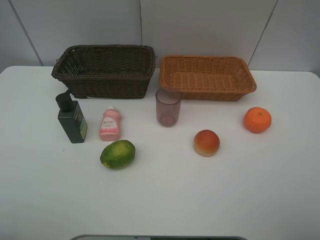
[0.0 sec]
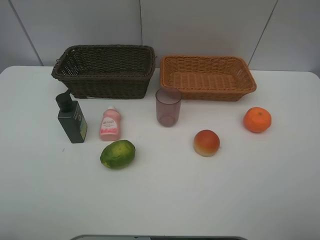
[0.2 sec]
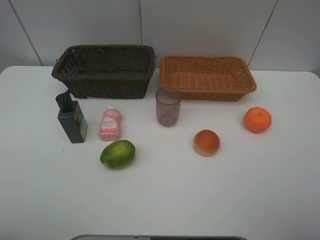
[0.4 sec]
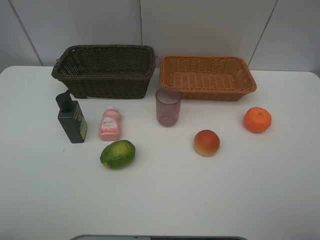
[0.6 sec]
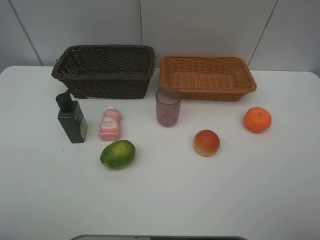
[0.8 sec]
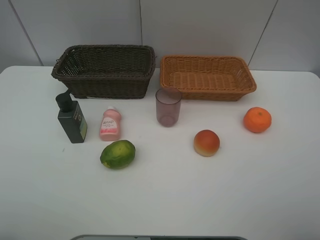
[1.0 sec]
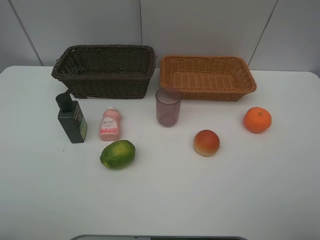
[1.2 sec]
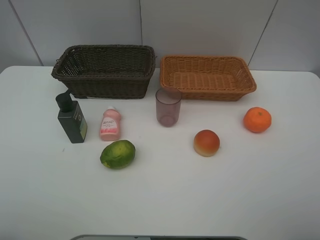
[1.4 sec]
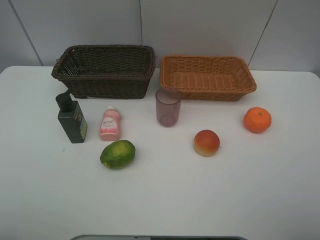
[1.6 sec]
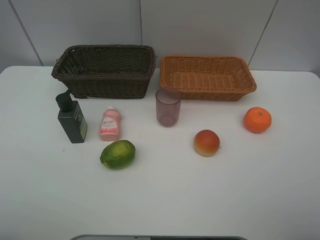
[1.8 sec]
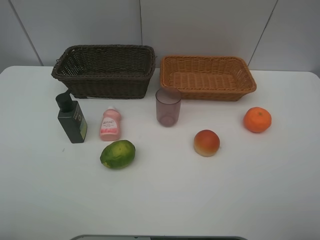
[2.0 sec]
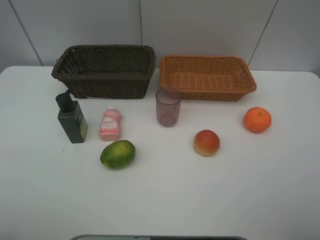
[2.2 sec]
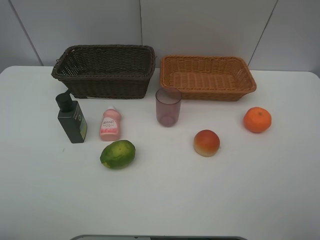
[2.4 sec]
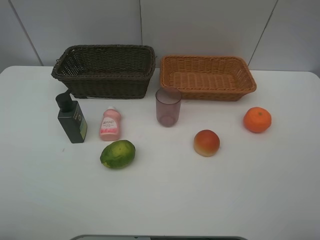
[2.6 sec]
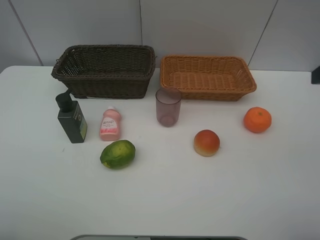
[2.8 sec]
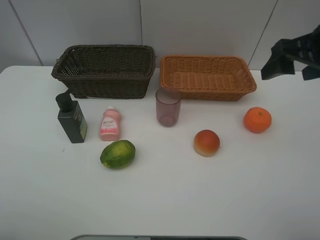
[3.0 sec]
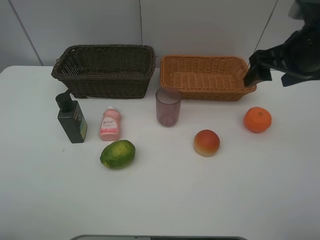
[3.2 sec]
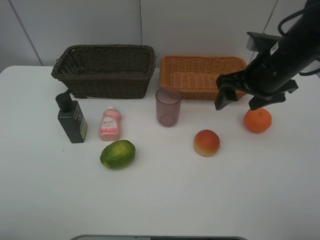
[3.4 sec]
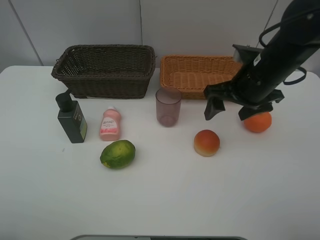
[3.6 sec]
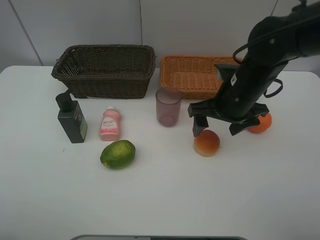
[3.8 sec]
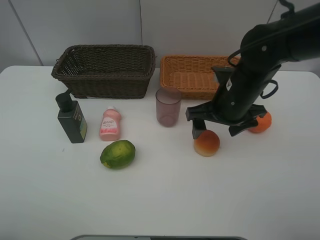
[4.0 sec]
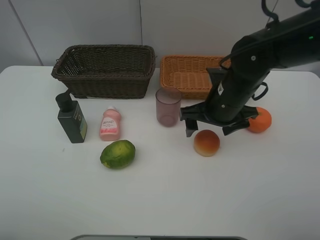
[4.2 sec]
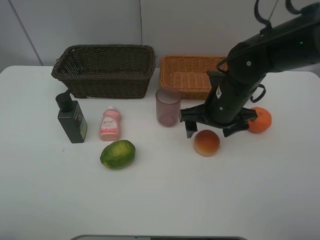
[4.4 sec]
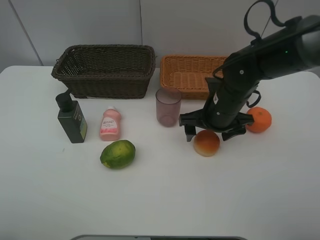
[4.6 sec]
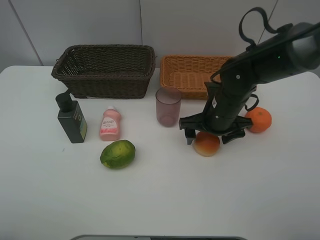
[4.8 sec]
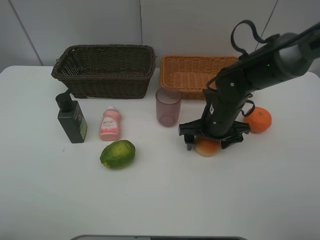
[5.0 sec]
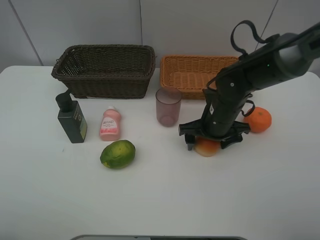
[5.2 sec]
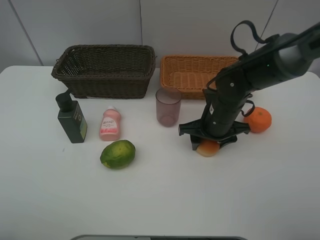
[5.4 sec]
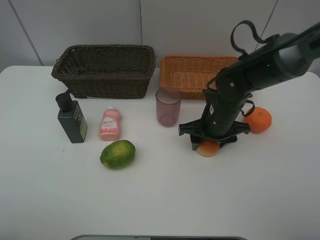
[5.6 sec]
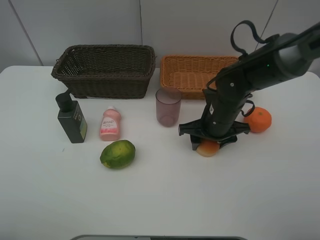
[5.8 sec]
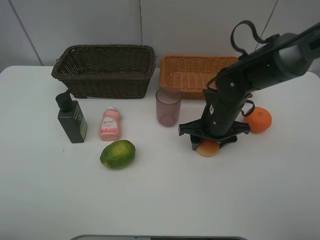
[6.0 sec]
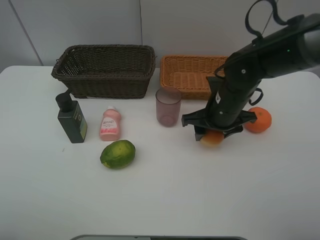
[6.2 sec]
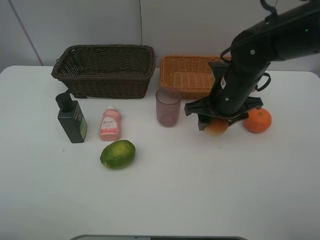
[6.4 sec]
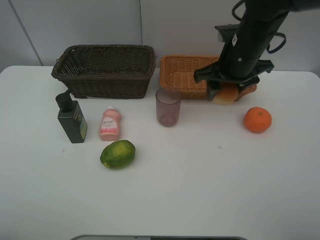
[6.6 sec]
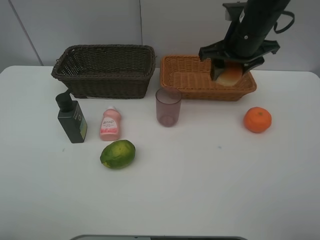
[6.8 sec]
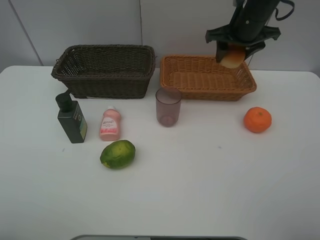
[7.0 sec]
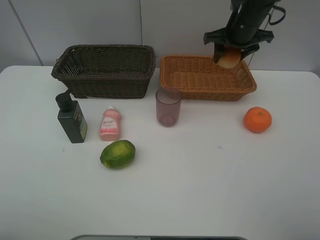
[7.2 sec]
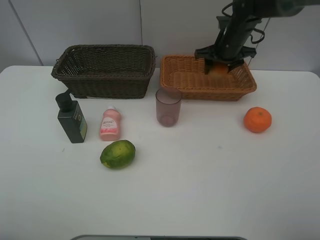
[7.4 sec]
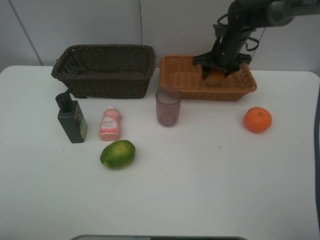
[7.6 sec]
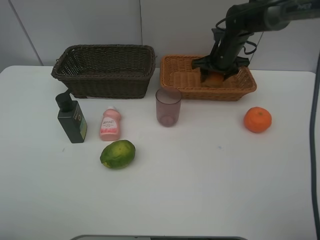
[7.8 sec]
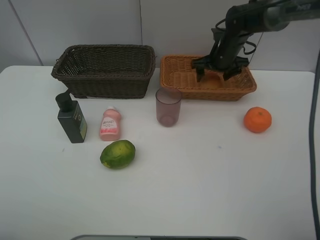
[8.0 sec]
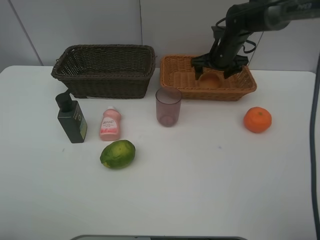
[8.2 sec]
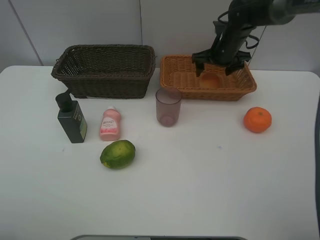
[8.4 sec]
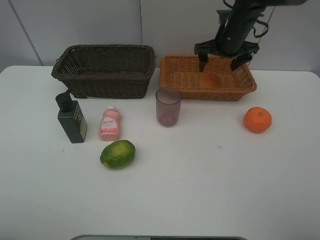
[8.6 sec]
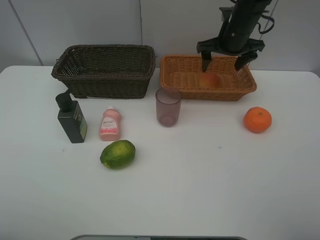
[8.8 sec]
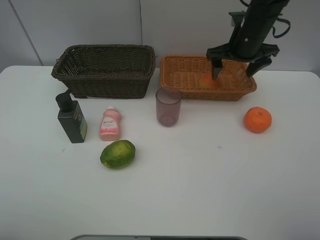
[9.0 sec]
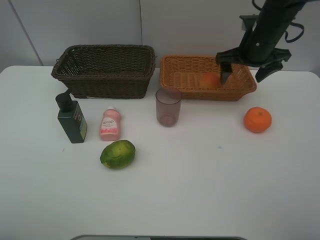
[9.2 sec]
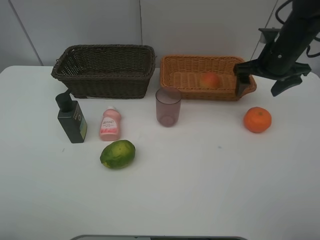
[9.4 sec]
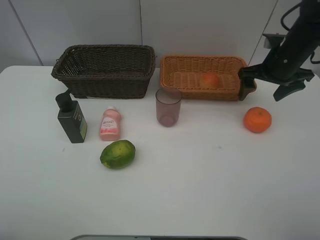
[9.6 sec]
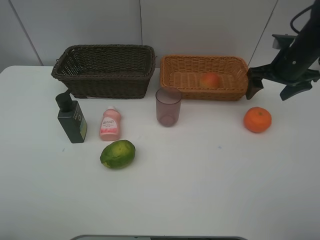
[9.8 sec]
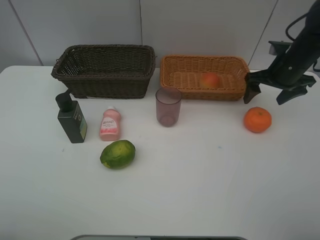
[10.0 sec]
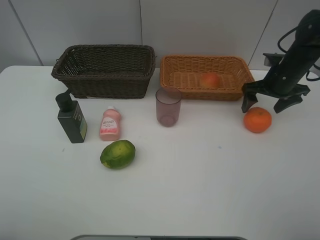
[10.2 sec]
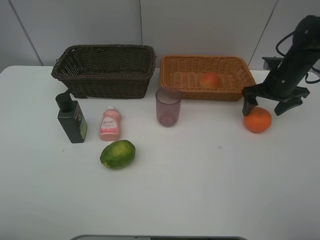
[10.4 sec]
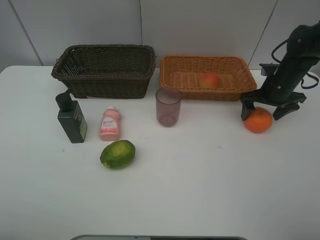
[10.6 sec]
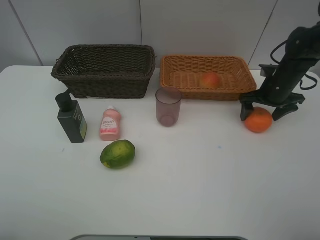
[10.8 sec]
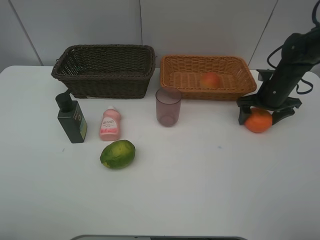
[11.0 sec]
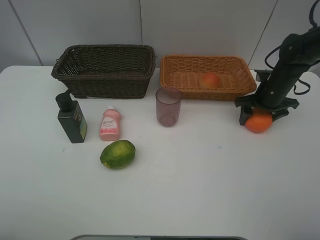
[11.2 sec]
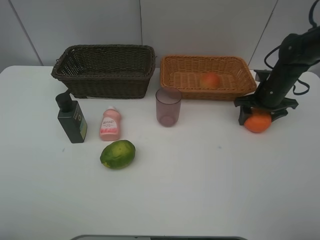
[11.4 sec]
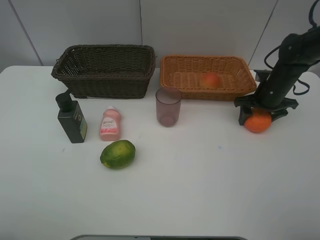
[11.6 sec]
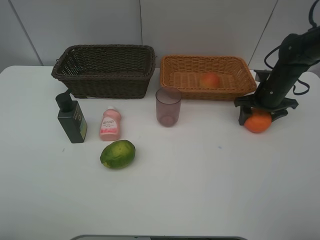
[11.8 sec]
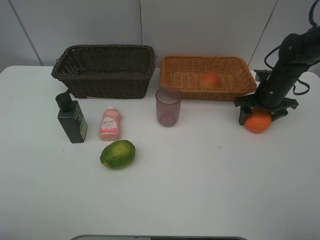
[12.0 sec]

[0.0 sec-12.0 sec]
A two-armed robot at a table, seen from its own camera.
Task of the whole recording: place multiple objects separately in different baskets.
0.0 sec to 1.6 sec: Both grippers stay about where they are.
1.6 sec to 3.0 sec: The right gripper moves forward, approximately 25 cm.
3.0 sec to 4.4 sec: The right gripper moves downward and to the left, roughly 20 cm.
4.4 sec to 6.0 sec: The right gripper closes.
6.0 sec to 7.6 sec: The right gripper heads forward, covering some 20 cm.
7.6 sec to 9.0 sec: The right gripper goes about 10 cm backward and upward, and opens up.
9.0 sec to 10.4 sec: The right gripper shifts about 15 cm to the right and downward.
10.4 sec to 12.0 sec: The right gripper closes up.

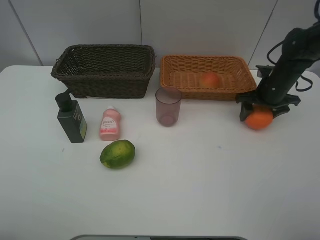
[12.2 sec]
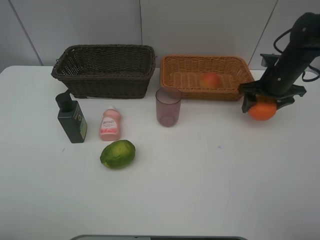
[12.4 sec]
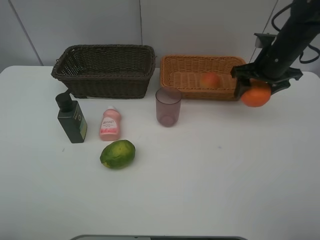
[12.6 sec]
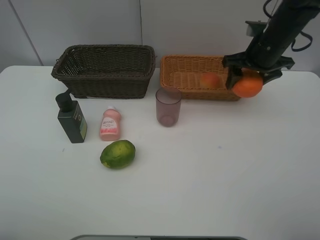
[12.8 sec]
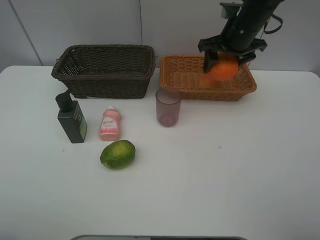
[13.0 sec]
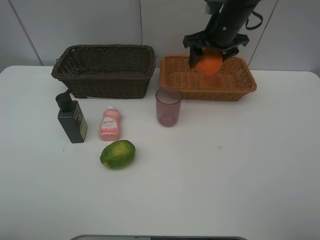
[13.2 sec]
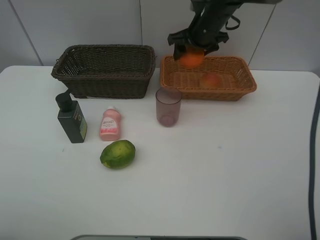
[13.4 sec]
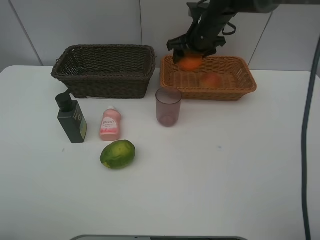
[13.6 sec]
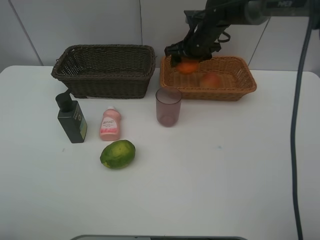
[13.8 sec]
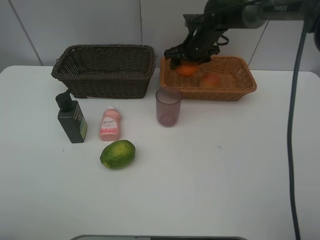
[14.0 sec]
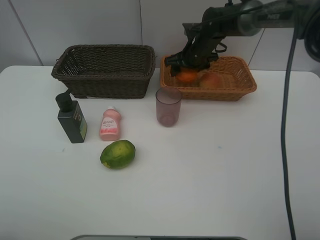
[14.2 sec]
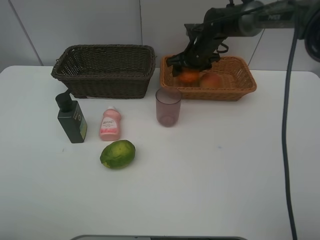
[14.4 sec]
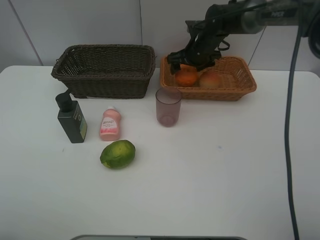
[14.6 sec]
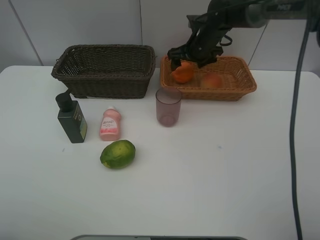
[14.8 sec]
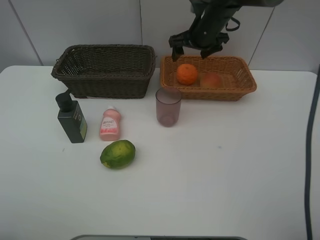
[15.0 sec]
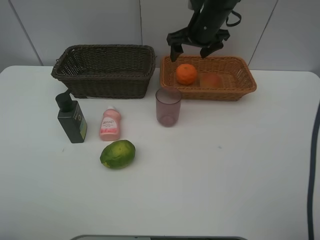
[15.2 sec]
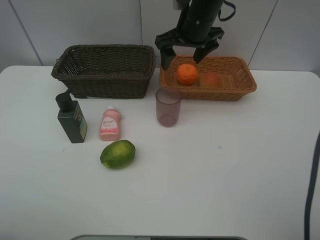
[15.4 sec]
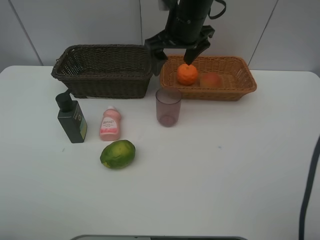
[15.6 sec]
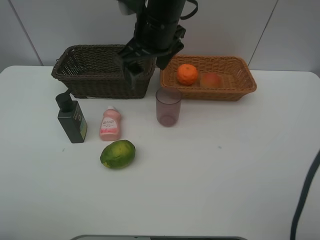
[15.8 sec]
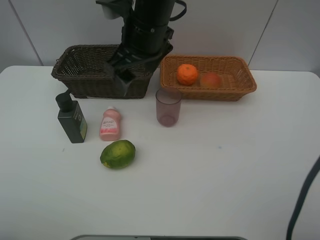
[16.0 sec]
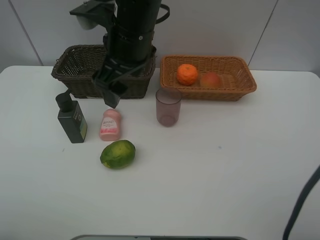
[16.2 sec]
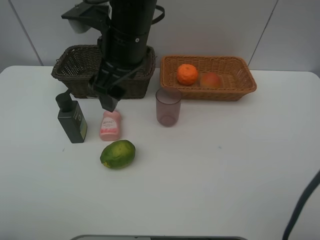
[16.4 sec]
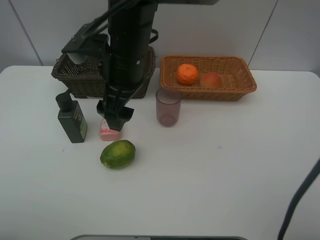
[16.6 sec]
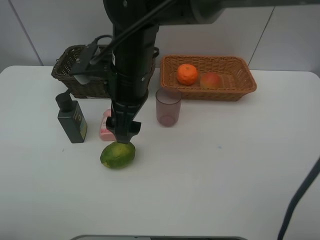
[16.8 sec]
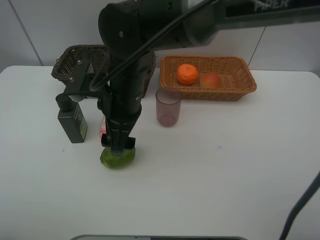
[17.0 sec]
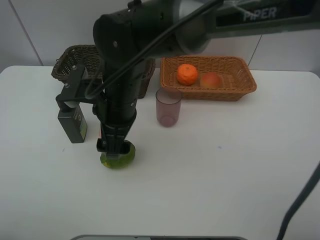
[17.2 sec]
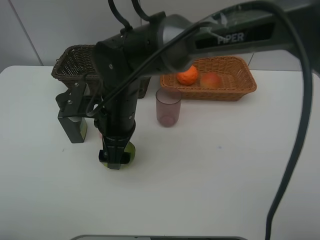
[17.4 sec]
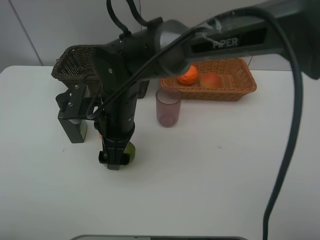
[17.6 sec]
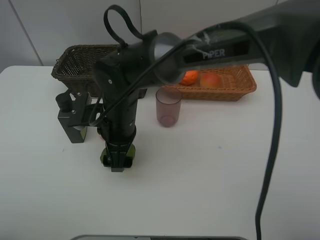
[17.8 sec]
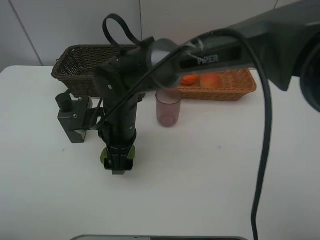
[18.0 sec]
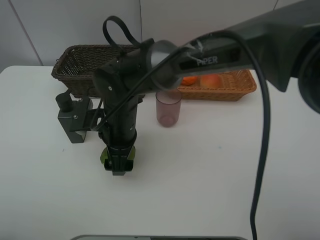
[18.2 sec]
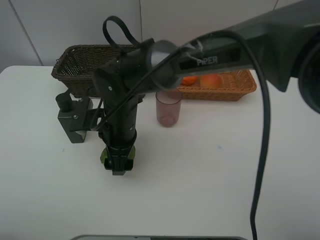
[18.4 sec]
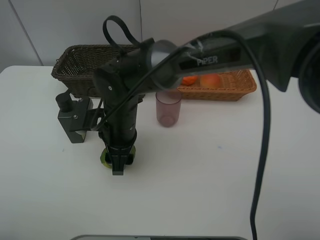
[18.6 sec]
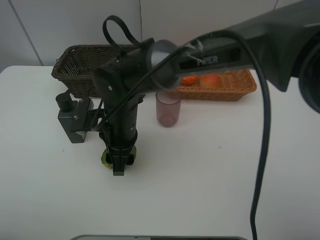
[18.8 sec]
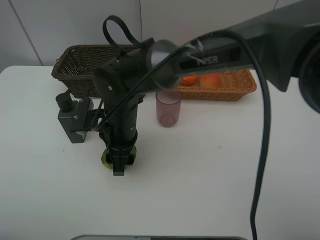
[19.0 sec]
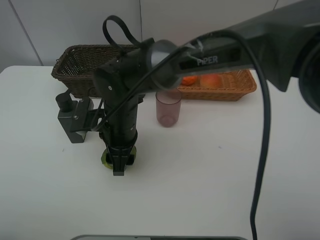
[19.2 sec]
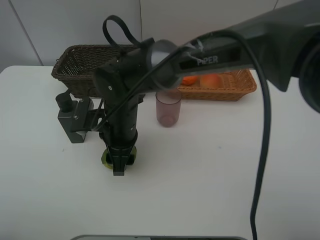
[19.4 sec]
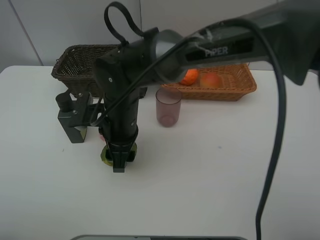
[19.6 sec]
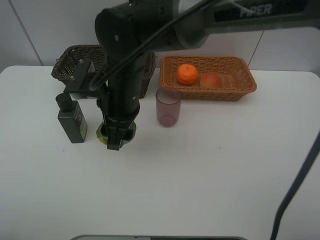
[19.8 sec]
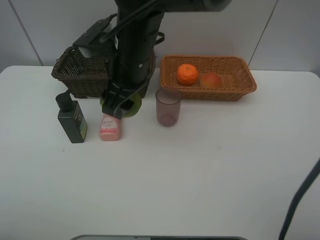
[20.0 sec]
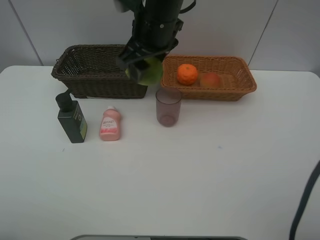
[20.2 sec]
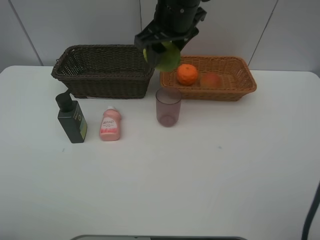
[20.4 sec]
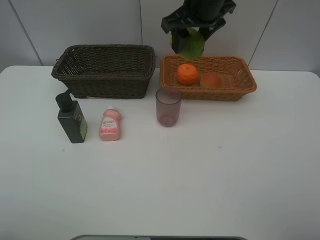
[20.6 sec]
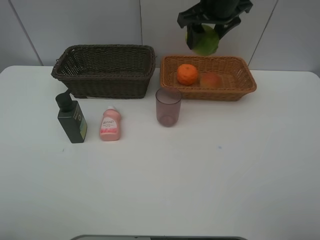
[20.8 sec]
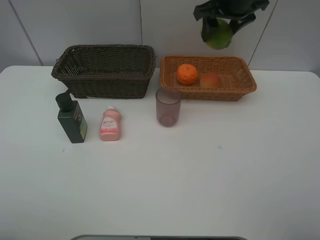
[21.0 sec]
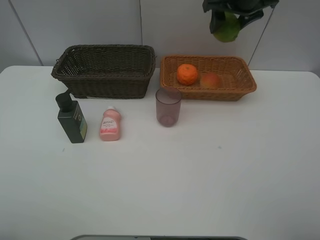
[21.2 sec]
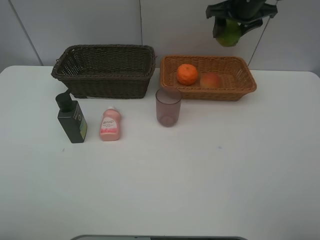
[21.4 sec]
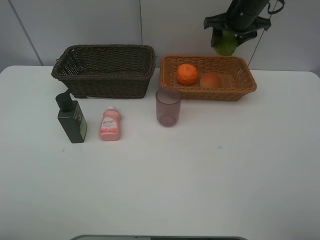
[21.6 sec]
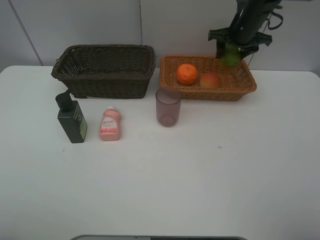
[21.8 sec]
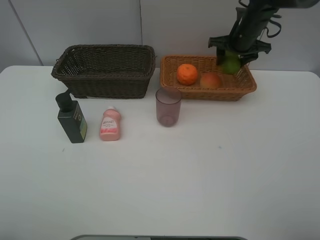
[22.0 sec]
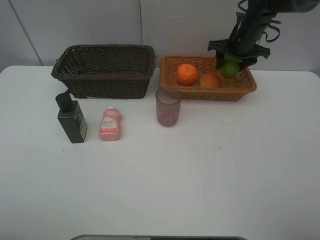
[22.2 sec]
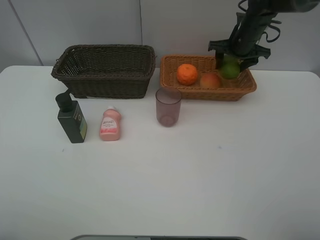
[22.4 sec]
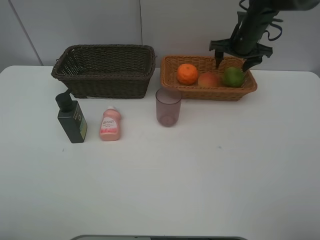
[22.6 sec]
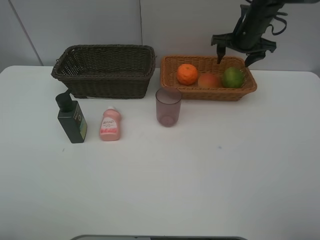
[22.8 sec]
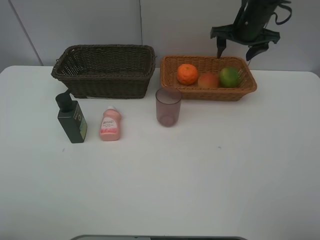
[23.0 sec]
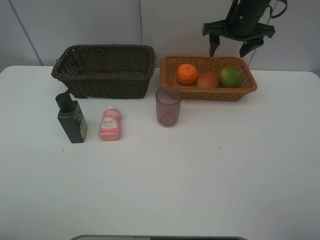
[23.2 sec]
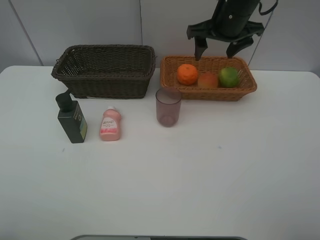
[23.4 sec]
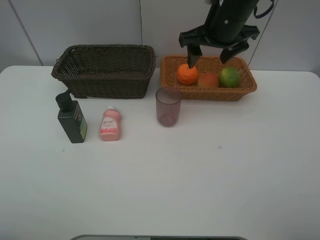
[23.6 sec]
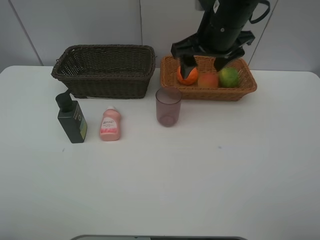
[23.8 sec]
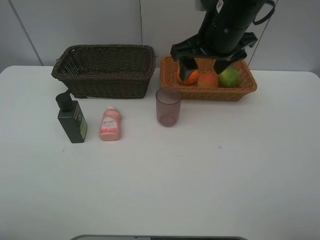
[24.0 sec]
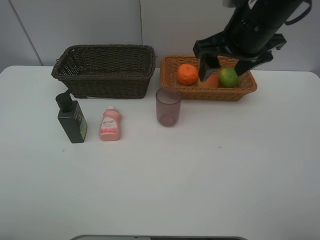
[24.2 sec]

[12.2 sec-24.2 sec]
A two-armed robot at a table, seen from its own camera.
Task of the whole recording: place multiple objects separately in different baskets.
12.2 sec to 13.8 sec: The right gripper goes approximately 20 cm to the left and forward.
13.8 sec to 15.2 sec: The right gripper shifts roughly 5 cm upward, and opens its fingers.
15.2 sec to 16.6 sec: The right gripper moves backward and to the left, approximately 25 cm.
16.6 sec to 18.2 sec: The right gripper moves downward, roughly 10 cm.
18.2 sec to 19.8 sec: The right gripper is displaced upward by some 10 cm, and closes its fingers.
19.8 sec to 21.2 sec: The right gripper is displaced to the right, forward and upward by approximately 30 cm.
21.2 sec to 22.6 sec: The right gripper heads downward, covering roughly 10 cm, and opens up.
22.6 sec to 24.2 sec: The right gripper is displaced backward and upward by about 20 cm.
